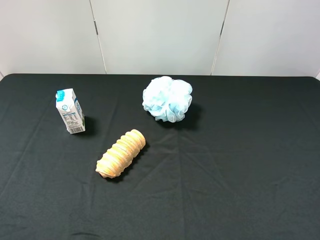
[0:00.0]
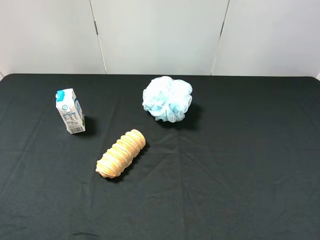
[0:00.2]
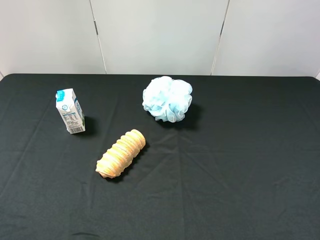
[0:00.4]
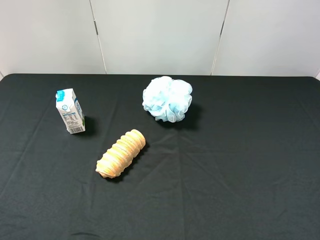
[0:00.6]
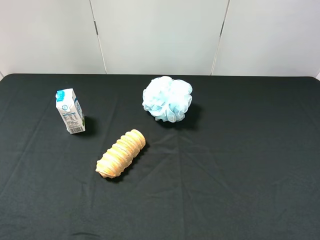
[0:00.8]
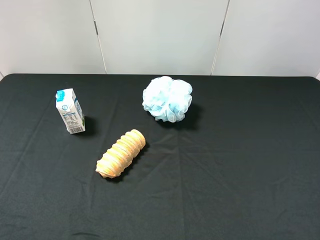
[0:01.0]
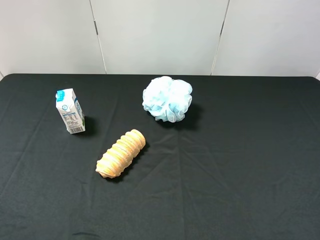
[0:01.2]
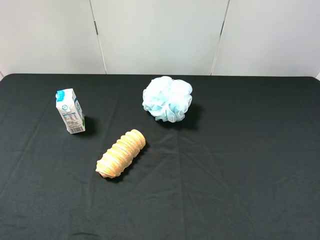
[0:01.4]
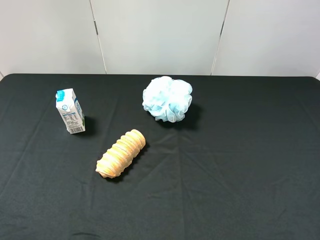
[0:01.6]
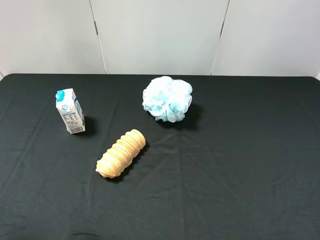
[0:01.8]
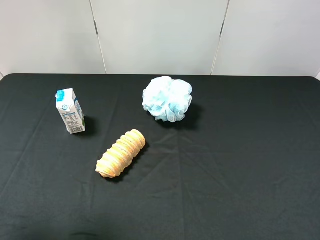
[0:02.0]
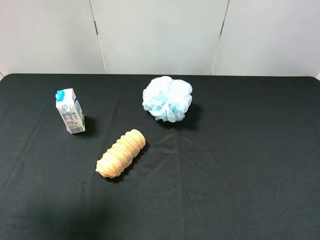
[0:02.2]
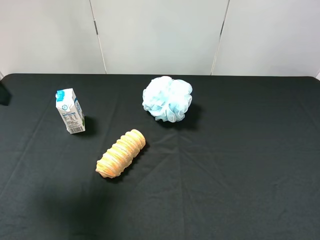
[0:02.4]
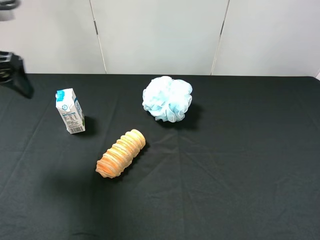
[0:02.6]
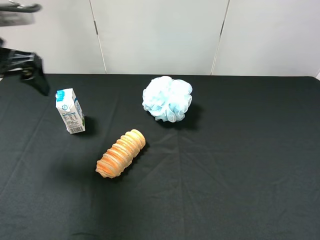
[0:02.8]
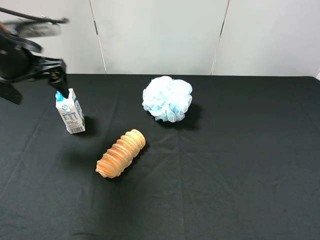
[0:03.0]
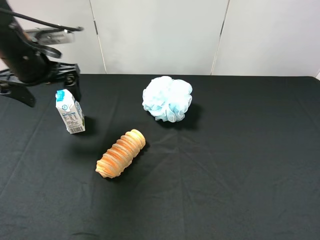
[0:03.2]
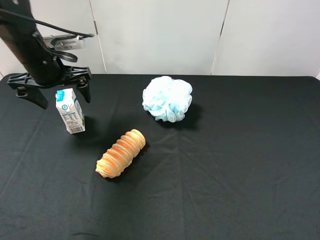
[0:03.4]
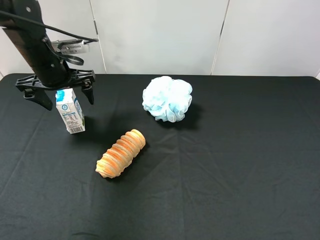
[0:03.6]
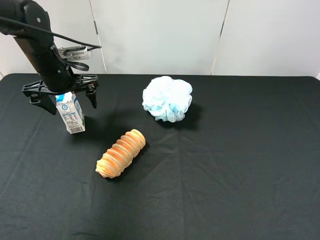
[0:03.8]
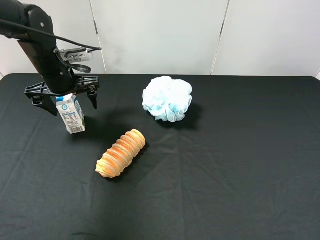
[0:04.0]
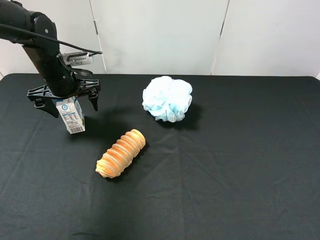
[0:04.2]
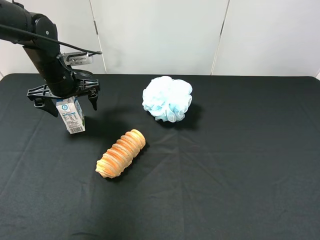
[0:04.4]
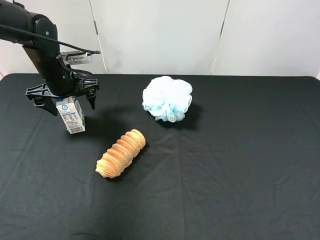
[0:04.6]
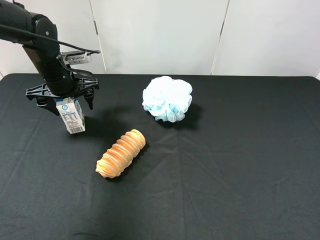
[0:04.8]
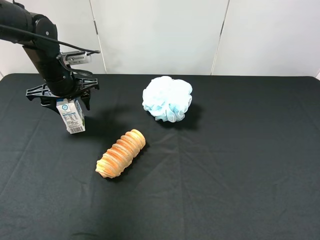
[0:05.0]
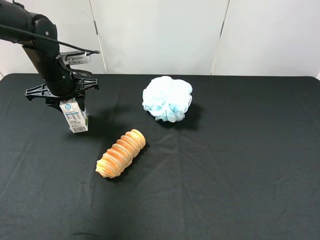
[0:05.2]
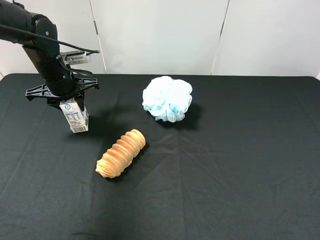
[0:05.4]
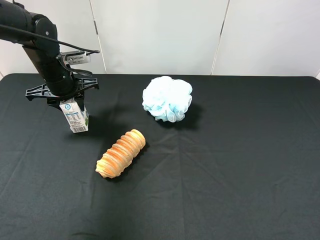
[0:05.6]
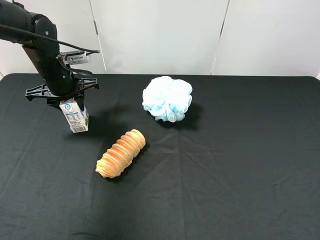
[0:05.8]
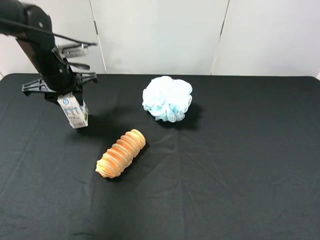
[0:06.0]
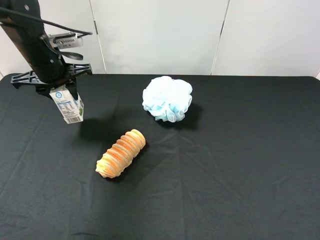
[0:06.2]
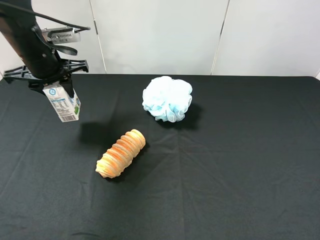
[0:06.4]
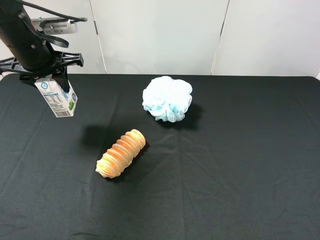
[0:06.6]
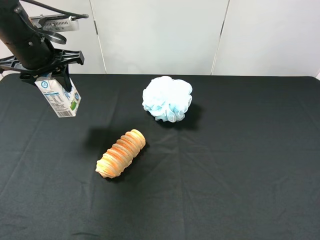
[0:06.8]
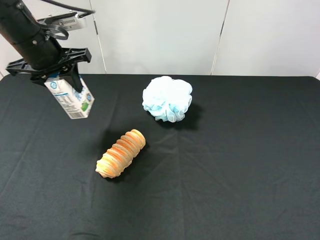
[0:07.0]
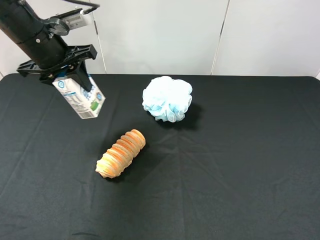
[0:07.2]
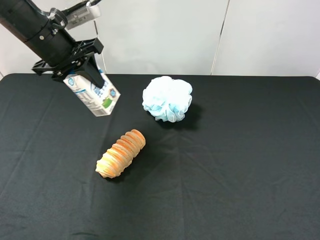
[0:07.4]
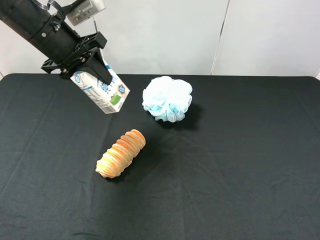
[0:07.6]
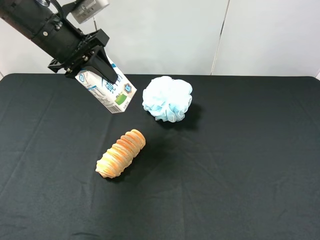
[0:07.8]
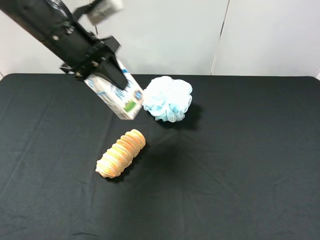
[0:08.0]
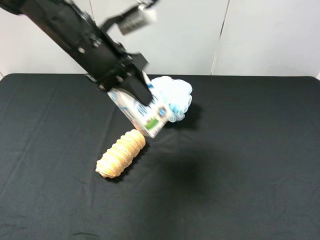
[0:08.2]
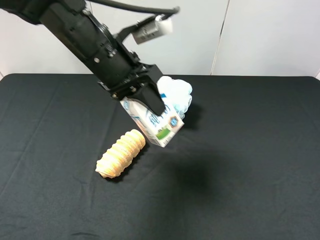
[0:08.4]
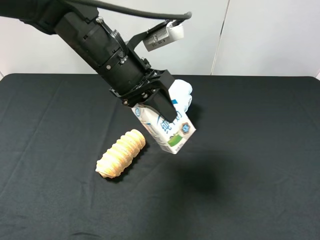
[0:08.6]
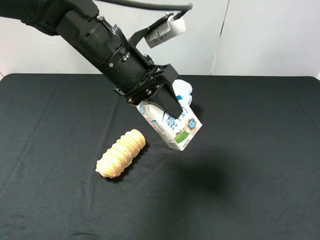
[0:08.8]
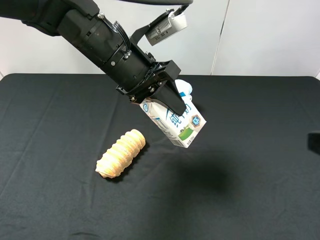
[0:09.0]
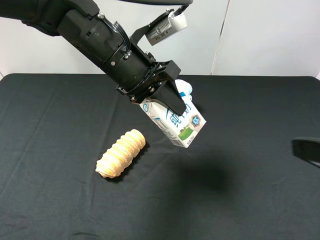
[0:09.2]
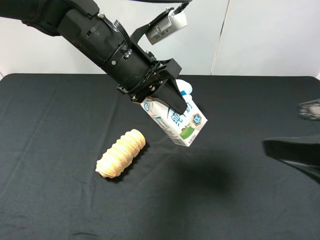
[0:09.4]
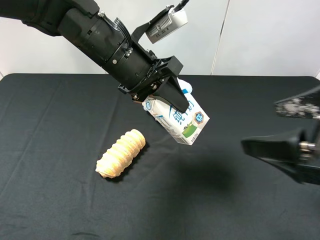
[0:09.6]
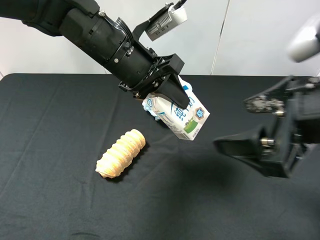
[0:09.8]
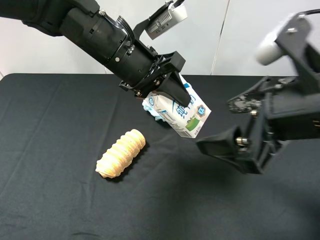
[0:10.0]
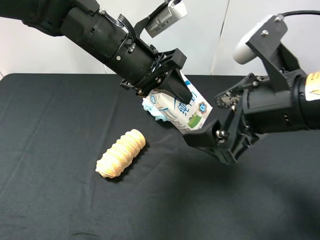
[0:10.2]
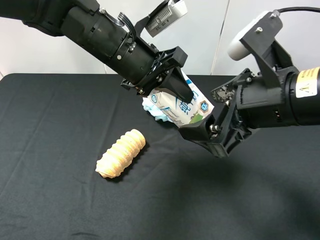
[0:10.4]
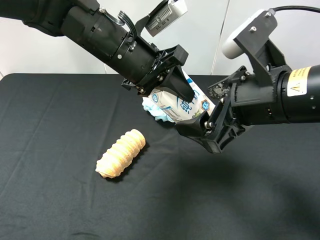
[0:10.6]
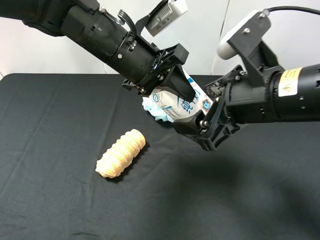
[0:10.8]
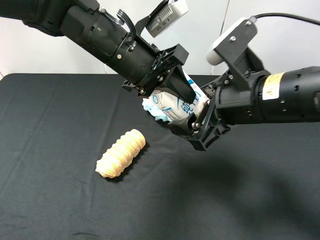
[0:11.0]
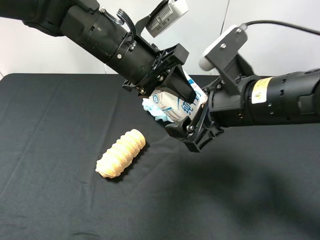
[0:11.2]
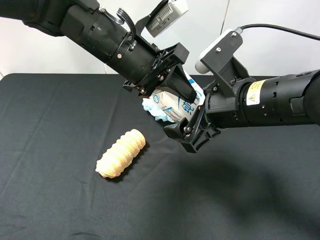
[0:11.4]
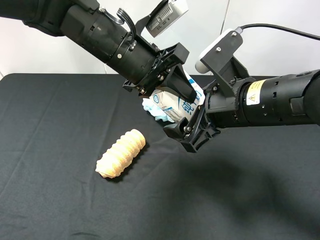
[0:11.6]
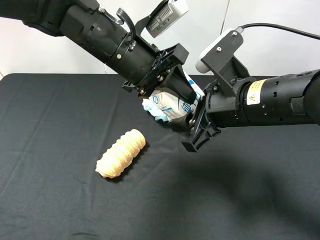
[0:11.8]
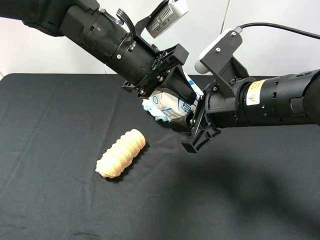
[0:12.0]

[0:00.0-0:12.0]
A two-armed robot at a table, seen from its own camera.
Task of the whole recording: use the left gripper to pick up the item and transfer it from the left gripper to the right gripper.
0:01.6 to 0:03.0: The left gripper shifts some 25 cm forward.
0:03.0 to 0:04.4: The left gripper heads downward and forward, covering approximately 10 cm.
0:04.4 to 0:06.0: The left gripper closes its fingers.
0:06.0 to 0:07.6: The left gripper travels upward by about 10 cm.
0:07.6 to 0:09.0: The right gripper goes some 5 cm forward. The left gripper is displaced to the right and backward by roughly 15 cm.
0:09.0 to 0:10.4: The right gripper is displaced to the left and forward by some 15 cm.
0:10.4 to 0:12.0: The right gripper moves about 5 cm, and closes up.

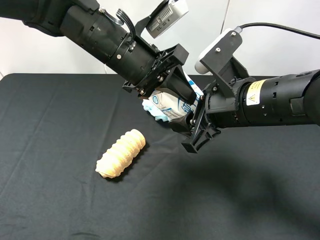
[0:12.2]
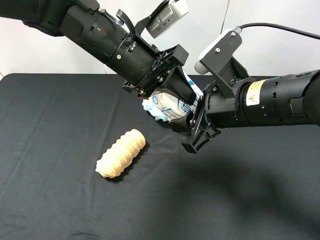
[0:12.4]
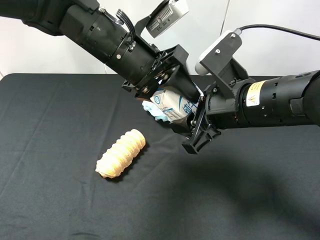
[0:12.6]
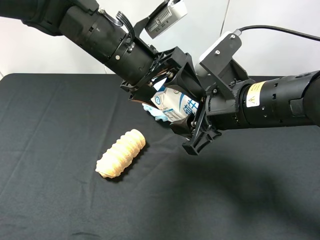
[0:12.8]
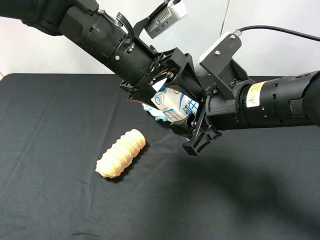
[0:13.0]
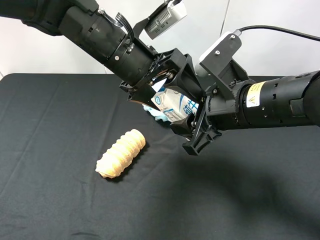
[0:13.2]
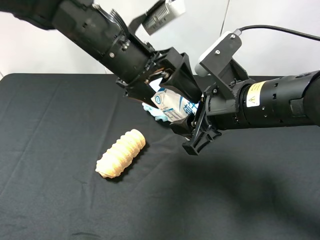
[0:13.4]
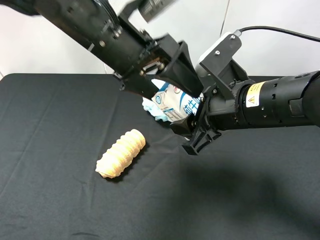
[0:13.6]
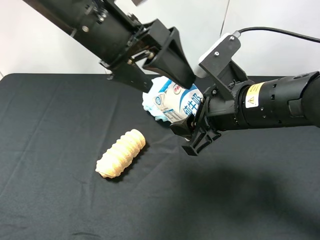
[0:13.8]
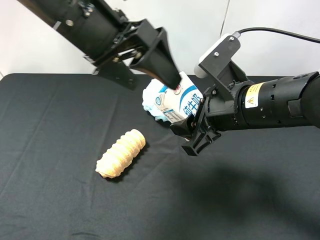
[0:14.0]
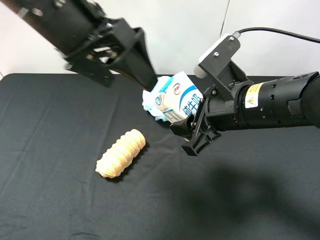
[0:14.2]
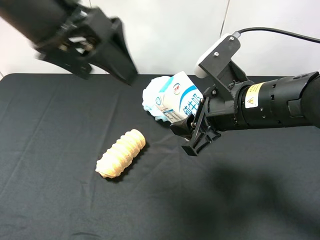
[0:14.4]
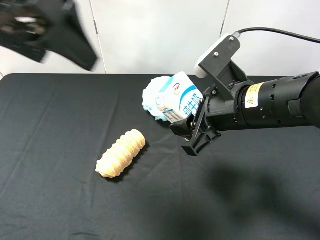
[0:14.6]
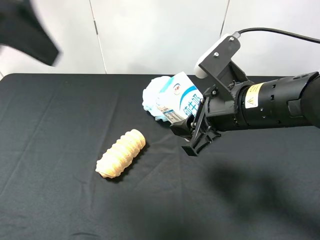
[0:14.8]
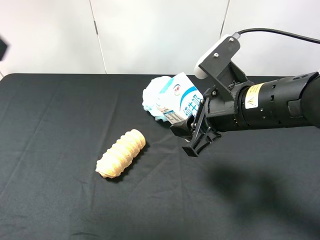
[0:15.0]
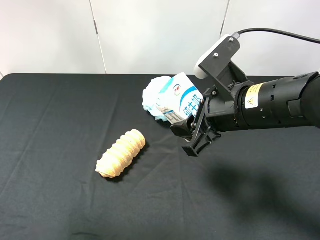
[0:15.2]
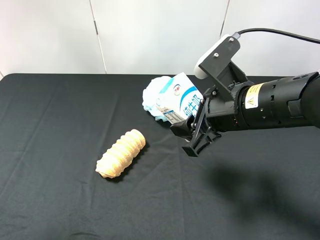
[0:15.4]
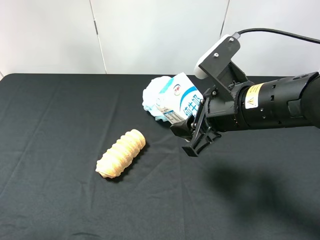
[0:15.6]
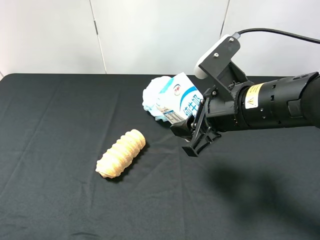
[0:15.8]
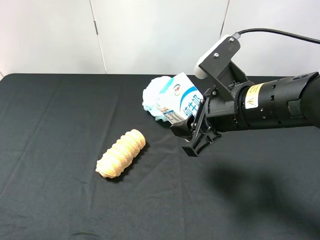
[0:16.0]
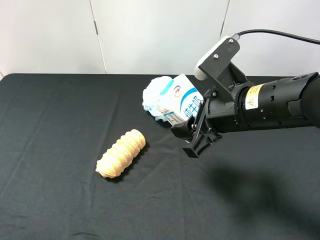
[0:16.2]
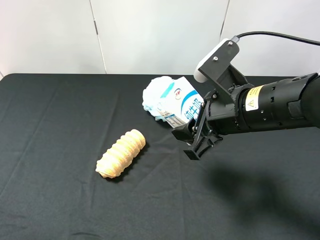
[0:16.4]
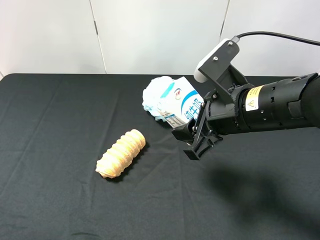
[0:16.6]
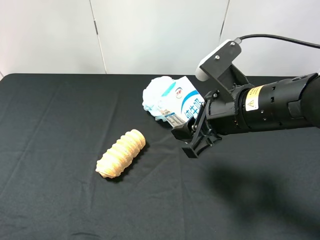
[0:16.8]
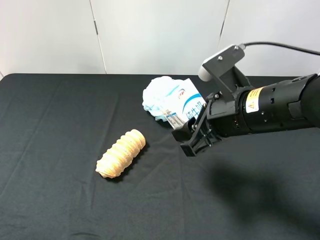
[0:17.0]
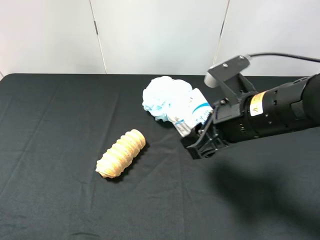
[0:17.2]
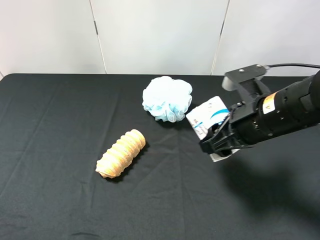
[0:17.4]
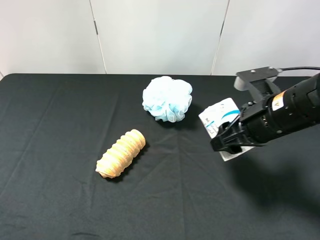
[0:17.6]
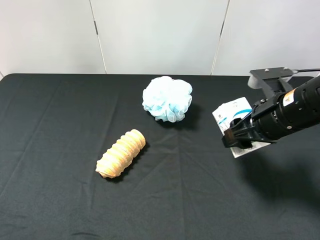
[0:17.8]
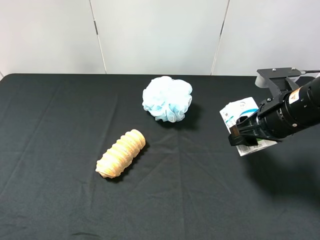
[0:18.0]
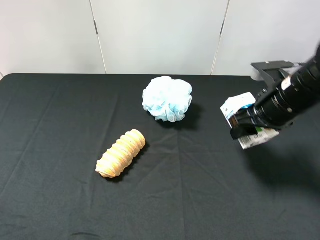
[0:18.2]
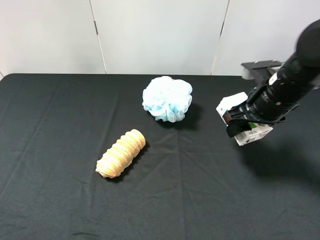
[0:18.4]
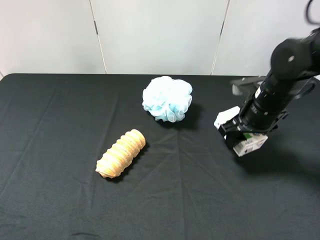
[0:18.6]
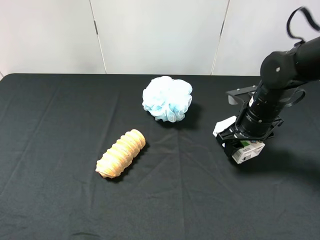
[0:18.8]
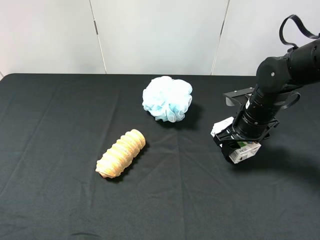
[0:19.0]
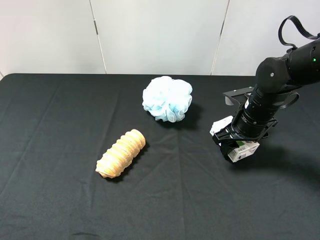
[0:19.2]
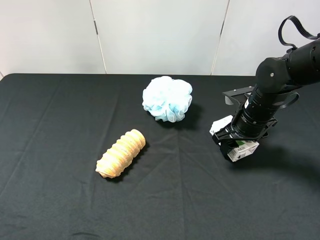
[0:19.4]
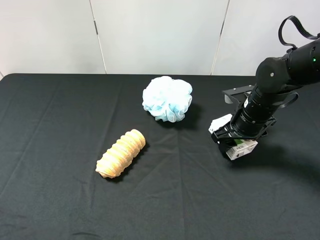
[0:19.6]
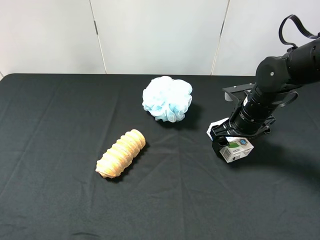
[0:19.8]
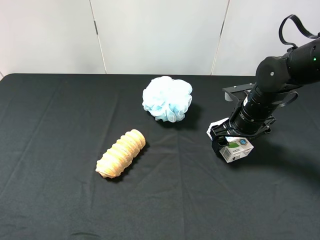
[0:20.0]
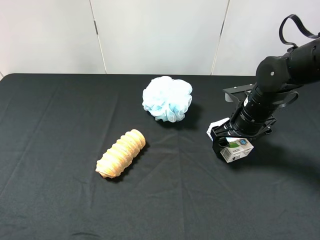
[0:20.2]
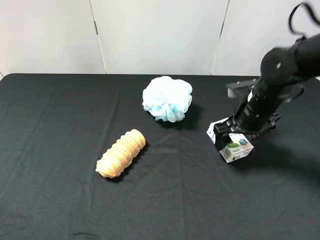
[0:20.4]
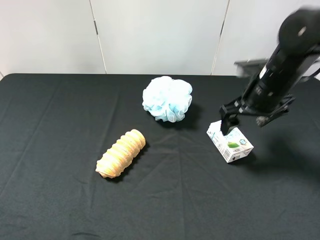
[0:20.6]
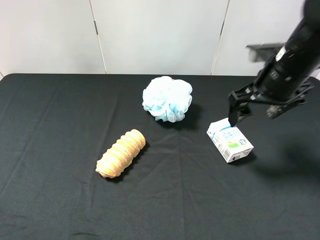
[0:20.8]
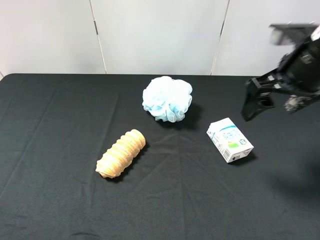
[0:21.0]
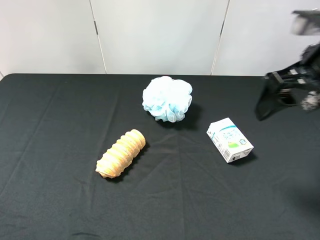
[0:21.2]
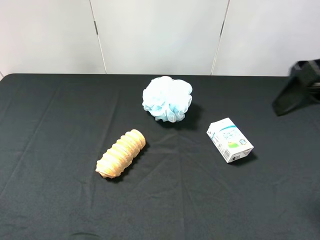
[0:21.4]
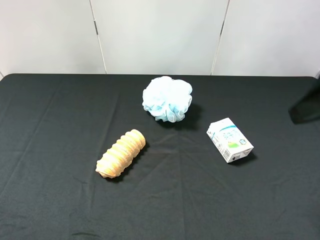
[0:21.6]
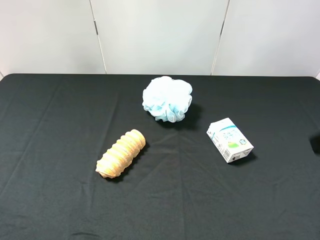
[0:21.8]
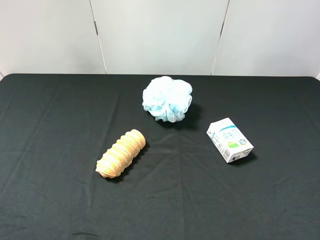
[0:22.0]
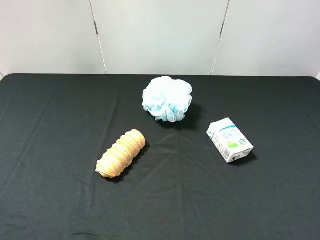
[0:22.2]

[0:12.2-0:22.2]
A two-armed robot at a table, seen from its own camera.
Task of the whole recording: use the left gripper to pick up the item and transfer it from the left gripper to the right gripper.
0:12.2 to 0:13.6: The left gripper opens up.
0:13.6 to 0:15.0: The left gripper moves to the left, upward and backward, approximately 25 cm.
0:15.0 to 0:16.4: The left gripper moves downward, backward and to the left, about 20 cm.
0:16.4 to 0:18.0: The right gripper heads to the right, covering roughly 10 cm.
0:18.0 to 0:19.4: The right gripper moves downward and forward, some 10 cm.
0:19.4 to 0:20.8: The right gripper is displaced upward by roughly 10 cm, and opens up.
0:20.8 to 0:22.2: The right gripper is displaced backward by approximately 25 cm.
